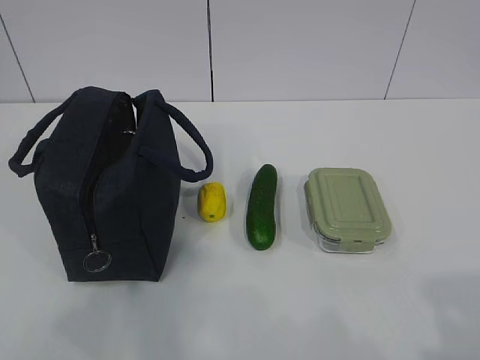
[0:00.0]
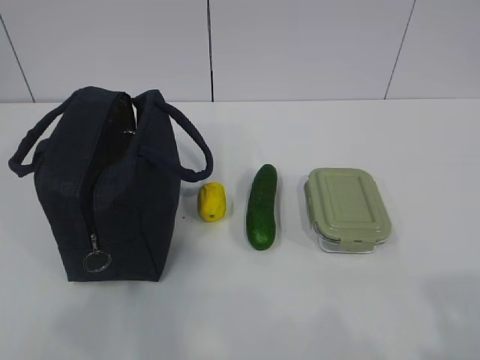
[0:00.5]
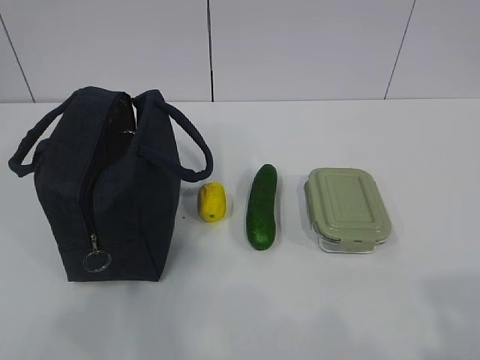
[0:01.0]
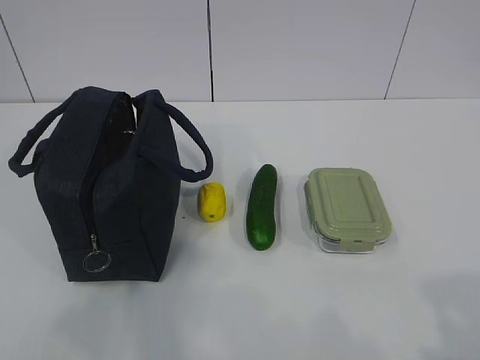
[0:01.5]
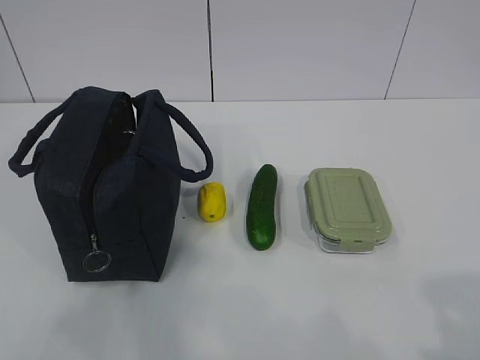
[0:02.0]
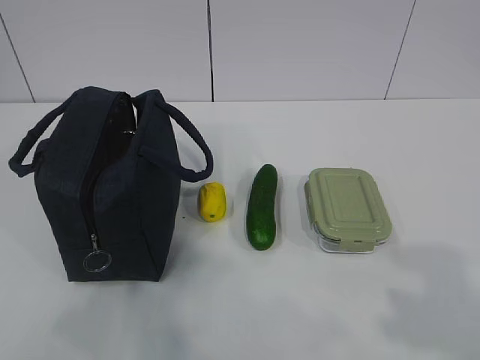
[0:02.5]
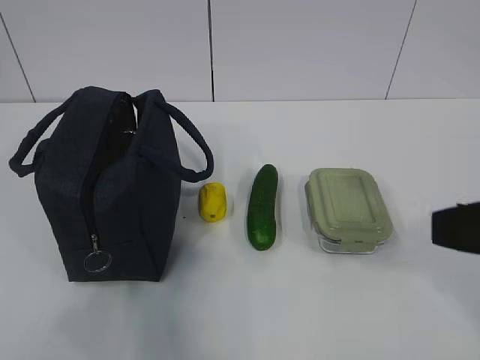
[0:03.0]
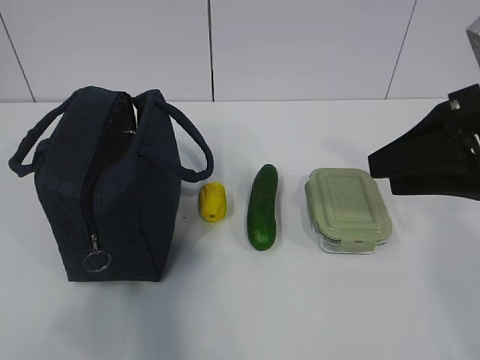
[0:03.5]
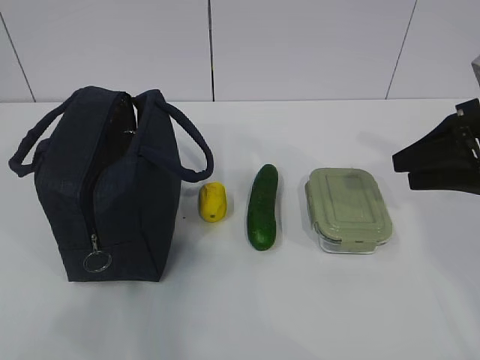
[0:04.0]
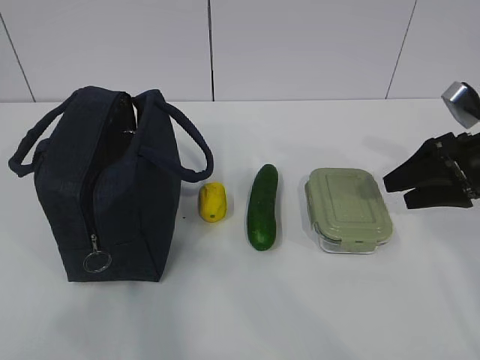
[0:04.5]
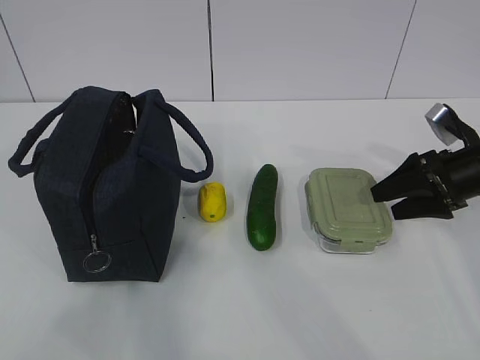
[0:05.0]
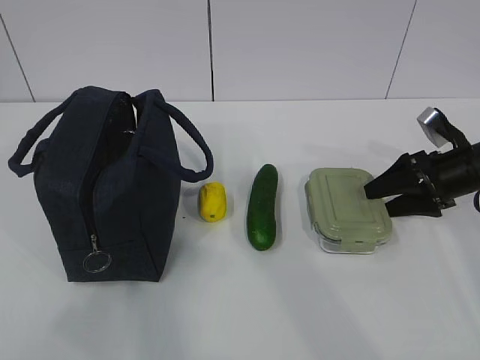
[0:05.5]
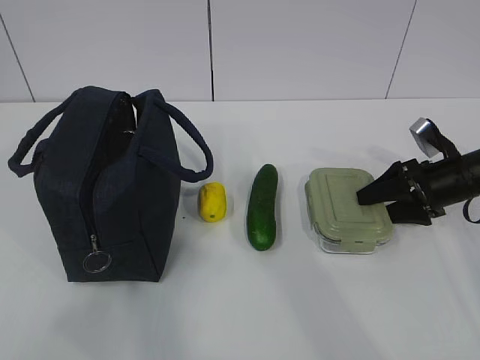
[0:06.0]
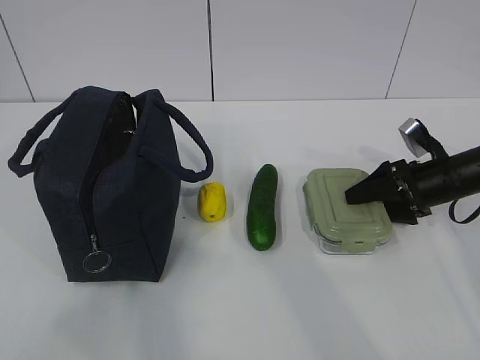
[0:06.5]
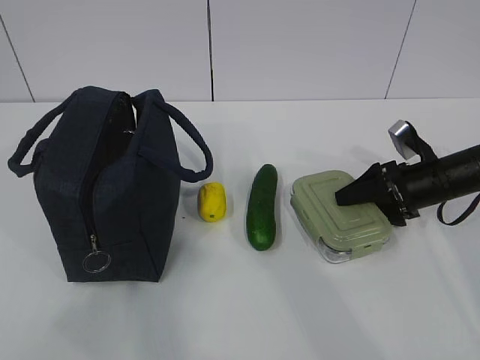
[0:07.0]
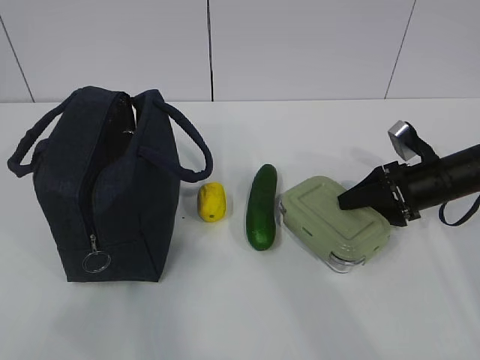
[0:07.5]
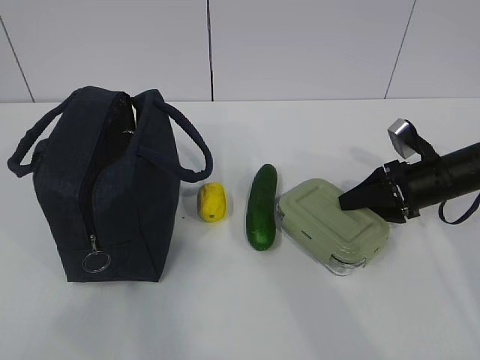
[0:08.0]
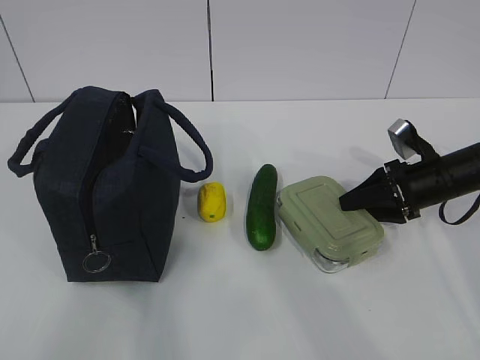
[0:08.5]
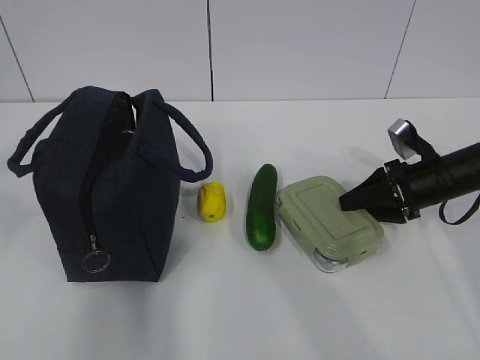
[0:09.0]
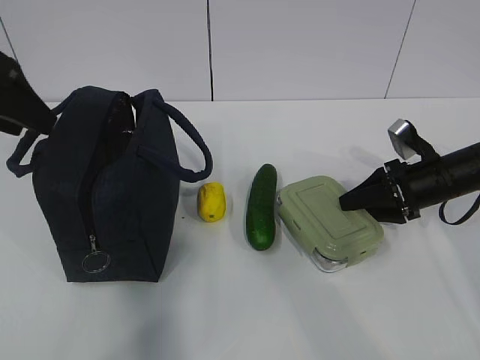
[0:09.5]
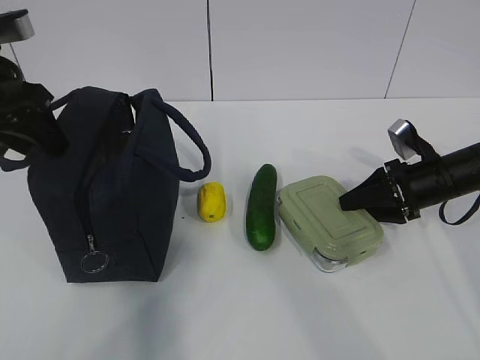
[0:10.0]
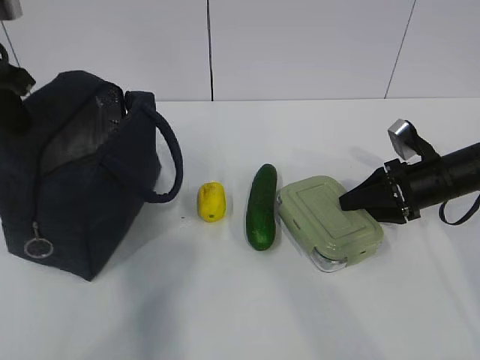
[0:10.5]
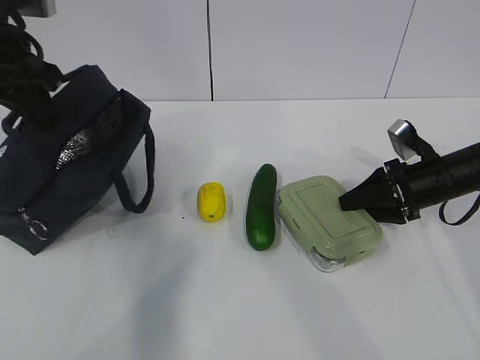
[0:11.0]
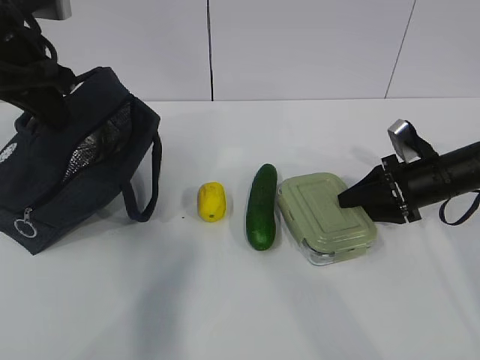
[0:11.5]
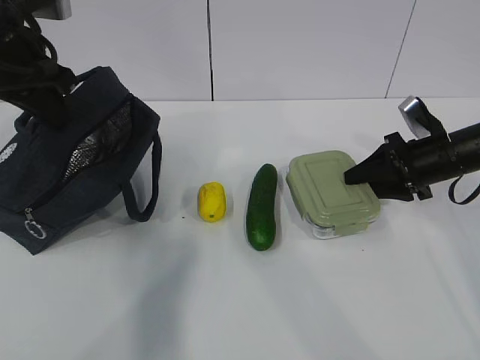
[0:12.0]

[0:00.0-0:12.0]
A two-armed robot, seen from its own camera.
Step, 0:00.0 to 0:09.0: Grab the lunch box with your right hand.
Step, 0:10.0 to 0:11.0: Grab the lunch bag with your left hand.
0:02.0 to 0:04.0: The right gripper shifts about 30 cm forward.
0:04.0 to 0:06.0: The right gripper heads downward and forward, covering some 15 cm, and opens up.
0:06.0 to 0:08.0: The right gripper closes its fingers.
0:08.0 to 0:10.0: The left gripper shifts some 35 cm forward.
0:10.0 to 0:12.0: The left gripper closes up.

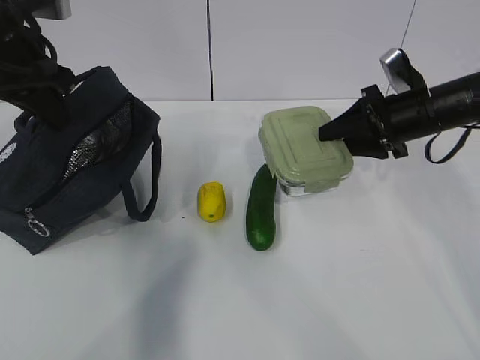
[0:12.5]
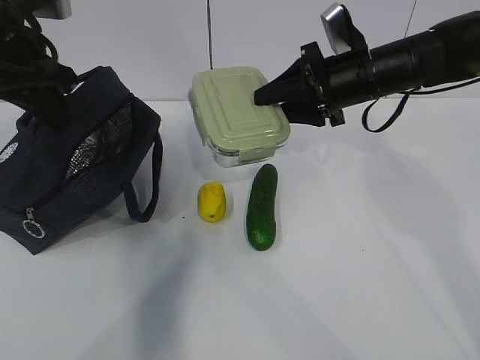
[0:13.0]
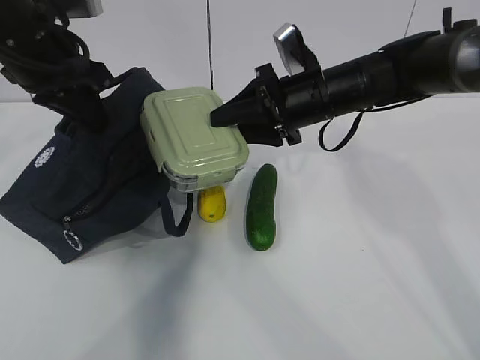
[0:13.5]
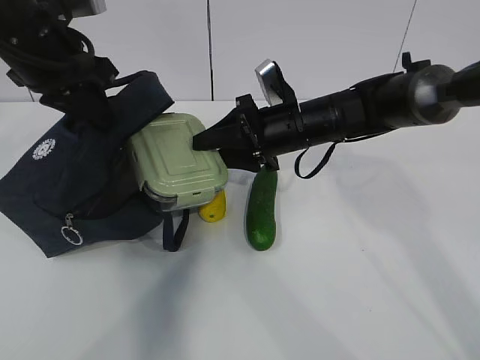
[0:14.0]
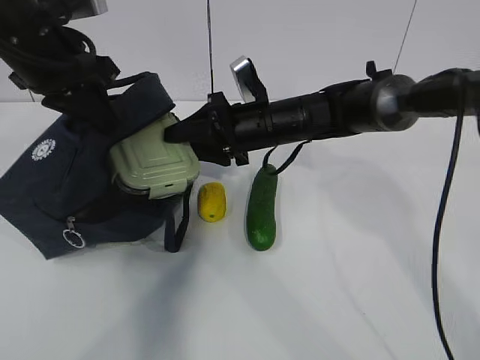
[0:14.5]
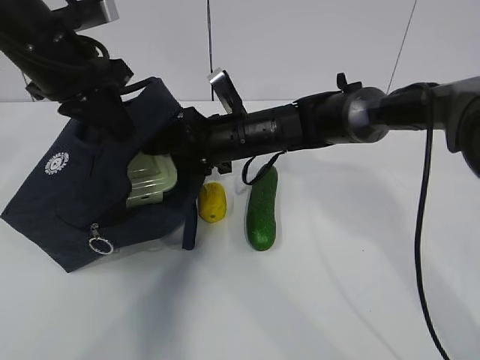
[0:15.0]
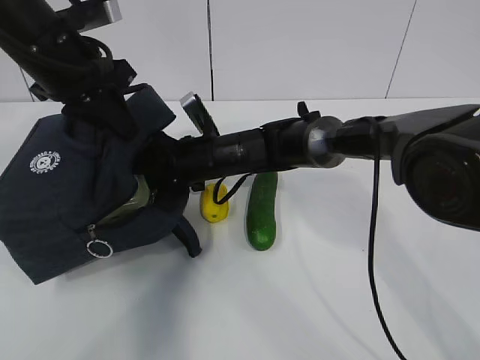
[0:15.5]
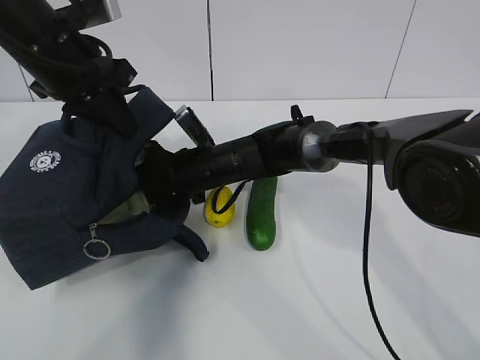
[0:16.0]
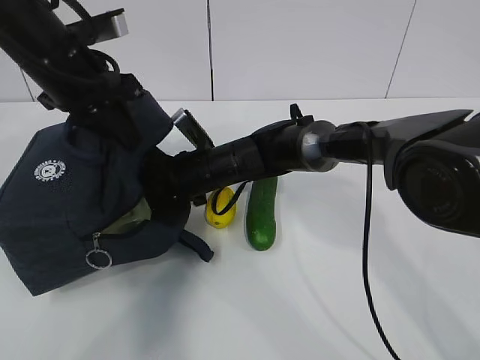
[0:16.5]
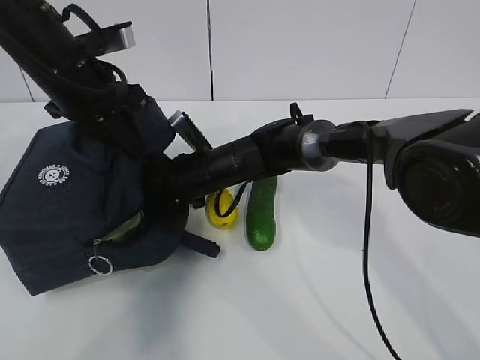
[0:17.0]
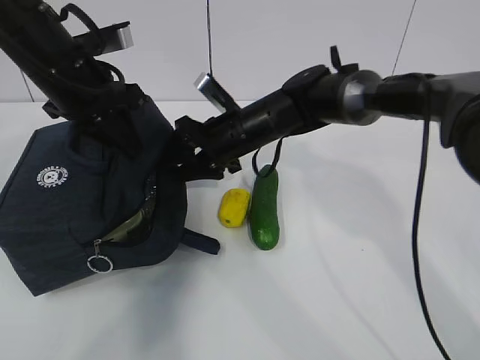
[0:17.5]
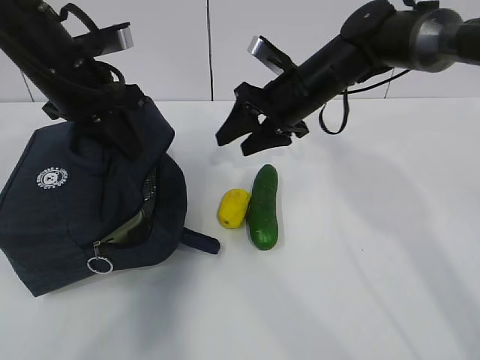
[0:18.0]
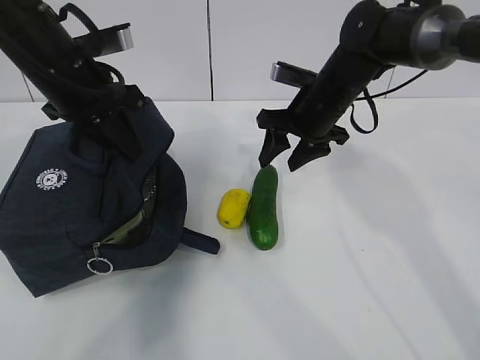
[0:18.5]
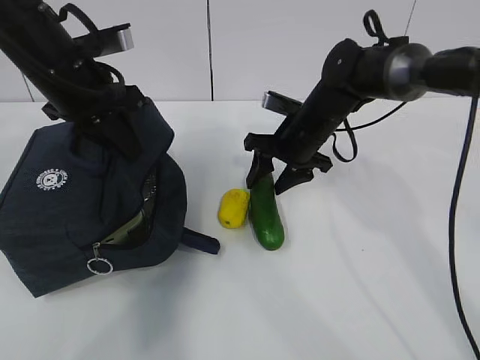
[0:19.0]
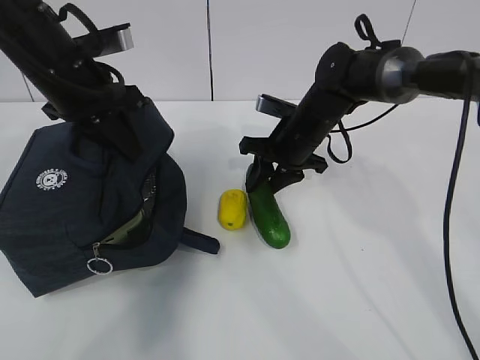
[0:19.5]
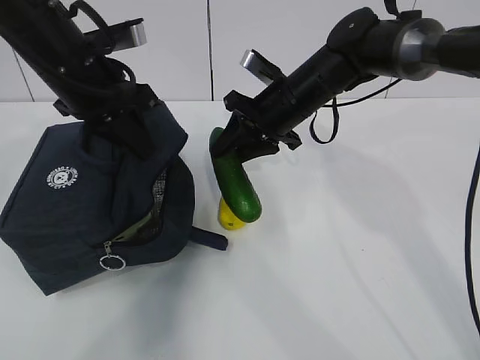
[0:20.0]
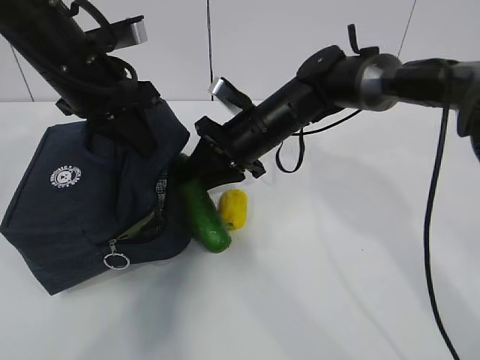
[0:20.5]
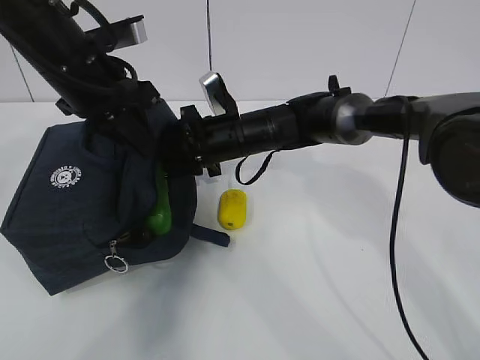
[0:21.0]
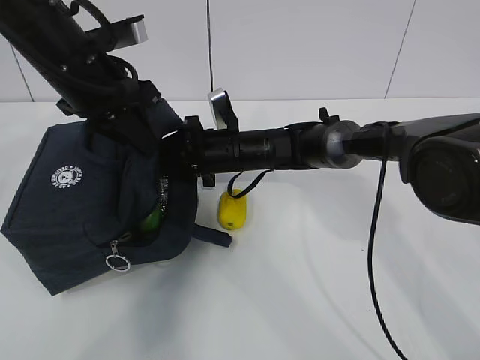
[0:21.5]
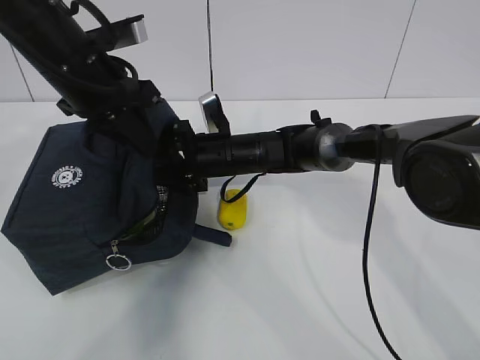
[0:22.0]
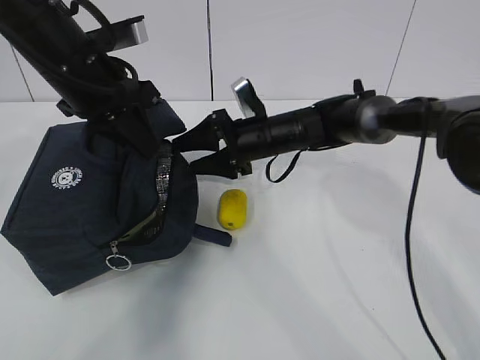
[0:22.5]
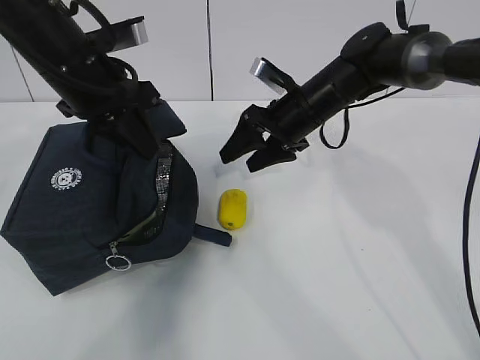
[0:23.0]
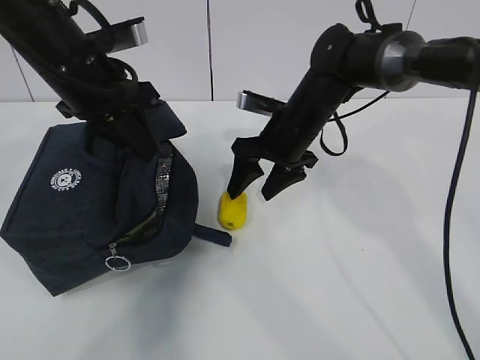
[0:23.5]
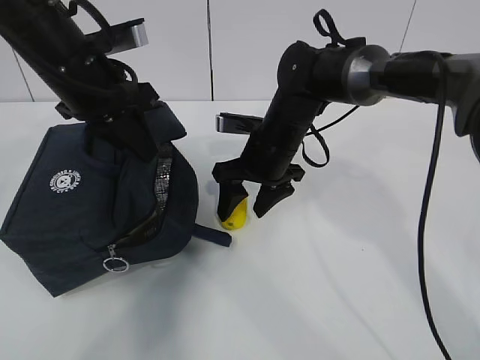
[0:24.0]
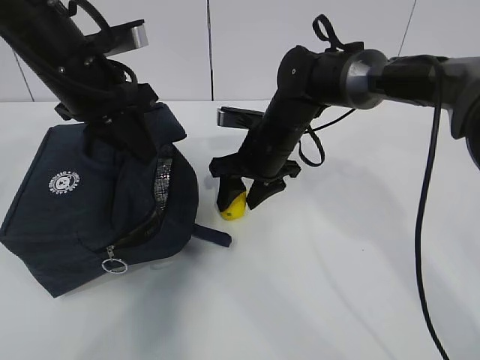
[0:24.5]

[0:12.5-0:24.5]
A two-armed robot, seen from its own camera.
Step, 0:12.5 to 0:14.0: Place it into the bag with your right hand.
Step, 0:14.5 to 0:16.0: Grab the cucumber with your right hand.
Step, 0:16.5 to 0:18.0: Place it into the bag with your right hand.
Step, 0:18.5 to 0:20.5: Grab the lemon with your right hand.
0:12.5 to 0:14.5: The right gripper moves to the left, approximately 20 cm.
0:14.5 to 0:16.5: The right gripper is displaced to the left and downward by approximately 10 cm.
0:16.5 to 0:18.5: The right gripper heads to the right and upward, covering some 15 cm.
0:18.5 to 0:20.5: The right gripper heads to the left, covering some 10 cm.
0:20.5 to 0:22.5: The right gripper moves approximately 5 cm, and opens.

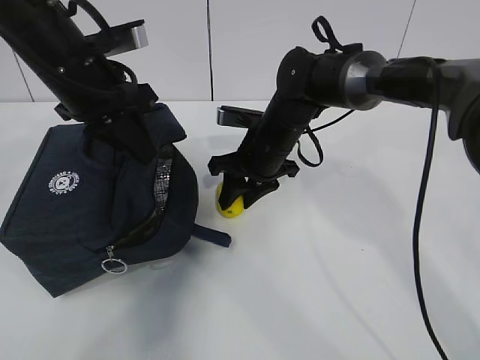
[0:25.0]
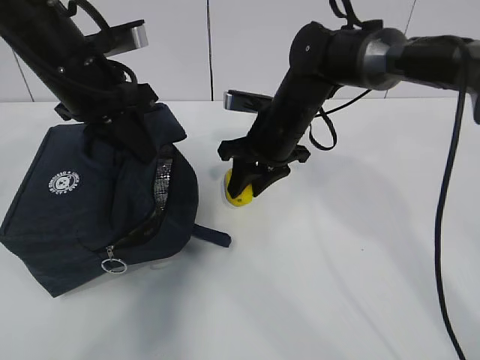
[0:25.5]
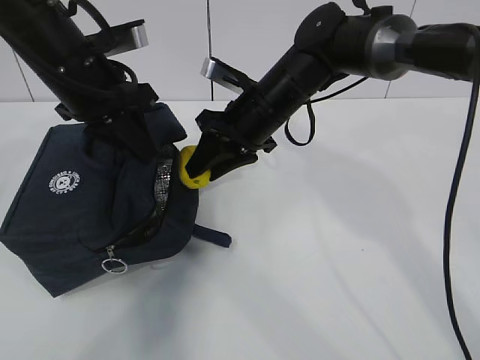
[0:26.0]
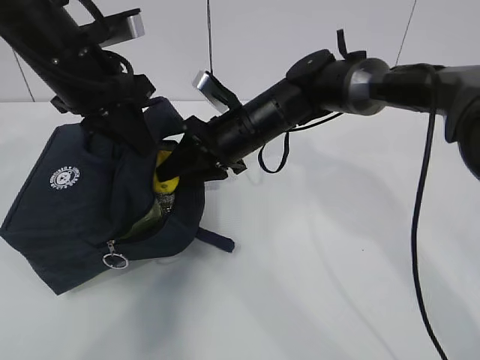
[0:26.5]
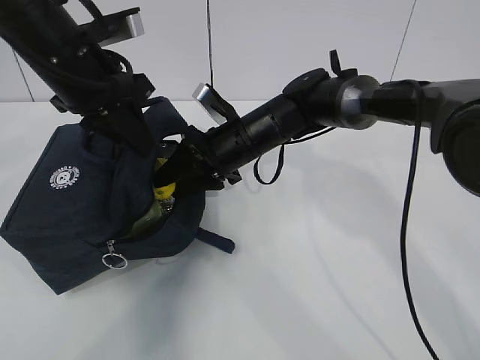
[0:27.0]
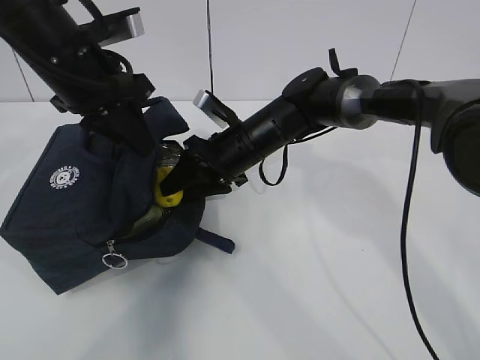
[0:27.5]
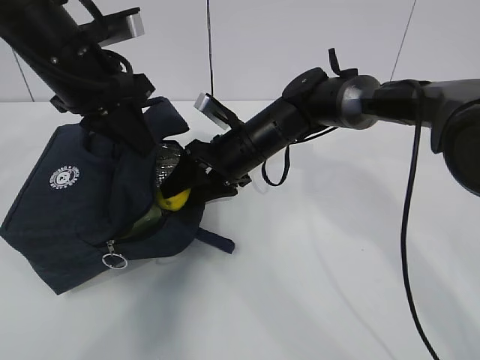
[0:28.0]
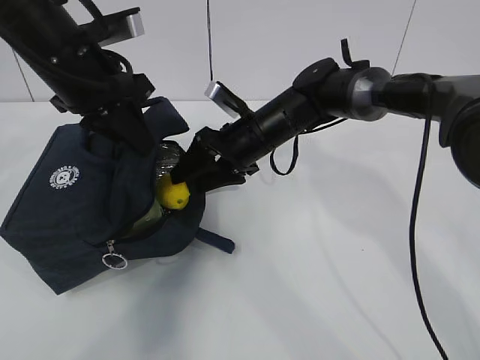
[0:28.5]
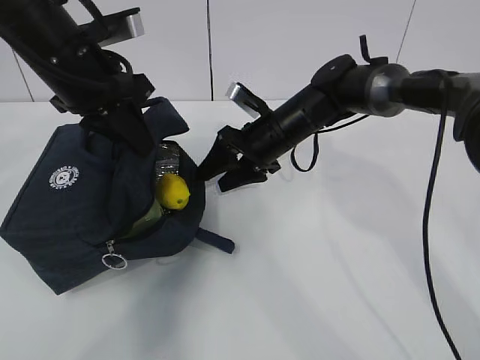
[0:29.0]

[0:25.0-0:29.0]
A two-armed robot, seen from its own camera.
Step, 0:26.5 to 0:28.5: Stand the lunch bag upright with your right hand.
0:27.0 to 0:29.0: The right gripper shifts by some 5 cm.
